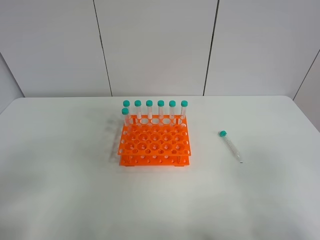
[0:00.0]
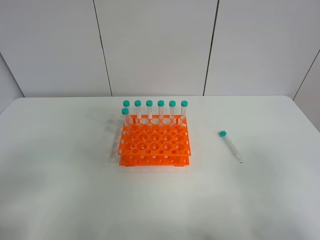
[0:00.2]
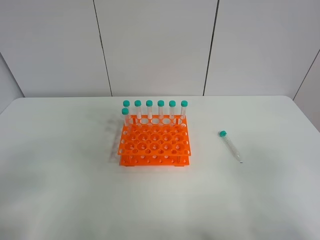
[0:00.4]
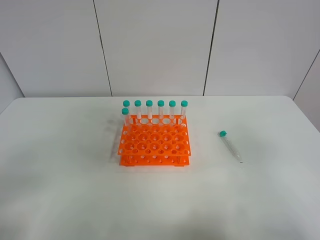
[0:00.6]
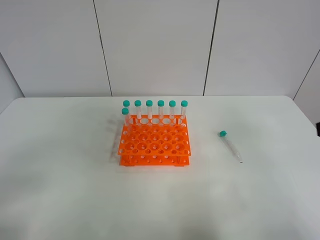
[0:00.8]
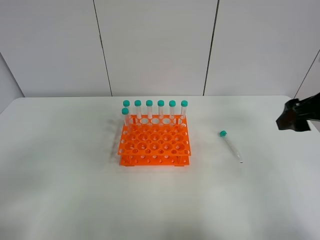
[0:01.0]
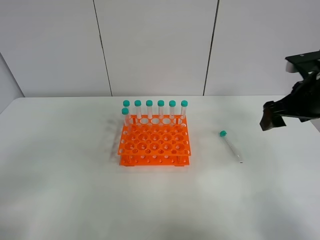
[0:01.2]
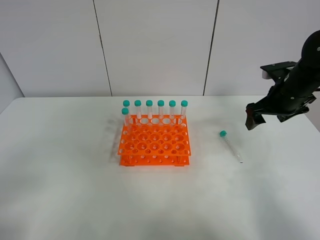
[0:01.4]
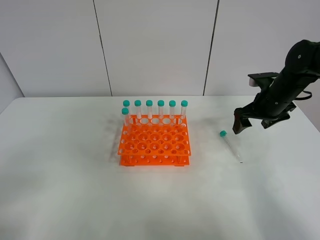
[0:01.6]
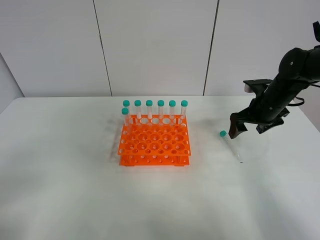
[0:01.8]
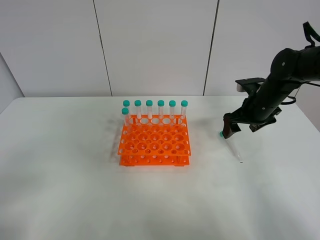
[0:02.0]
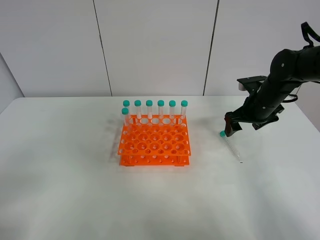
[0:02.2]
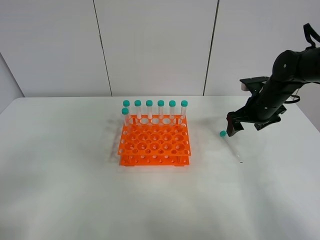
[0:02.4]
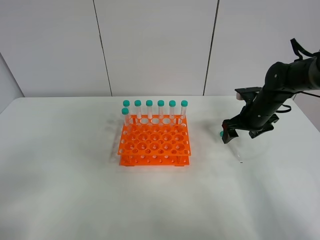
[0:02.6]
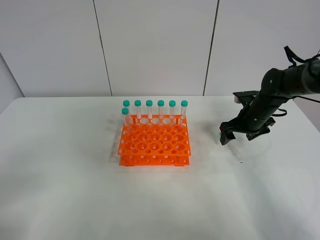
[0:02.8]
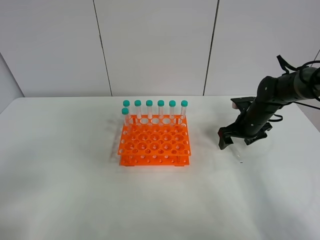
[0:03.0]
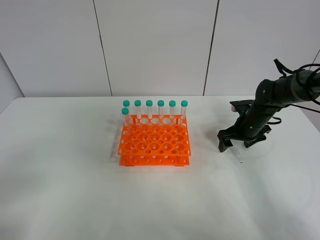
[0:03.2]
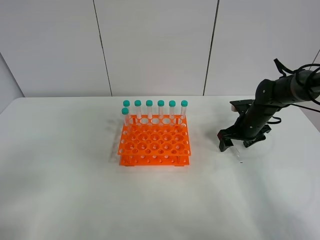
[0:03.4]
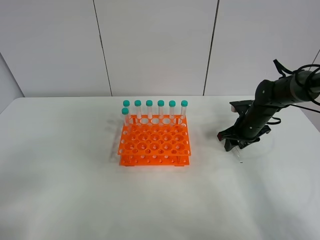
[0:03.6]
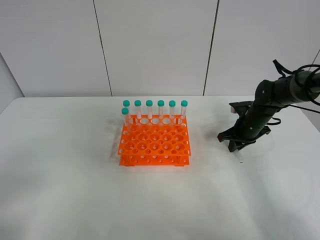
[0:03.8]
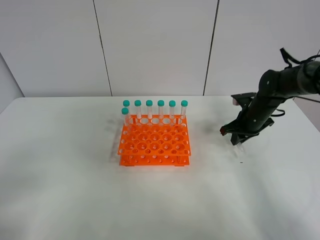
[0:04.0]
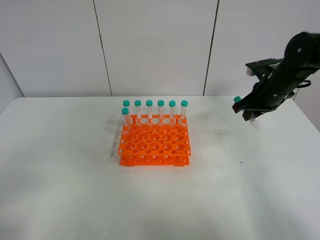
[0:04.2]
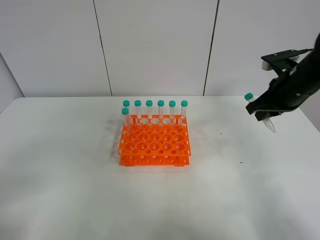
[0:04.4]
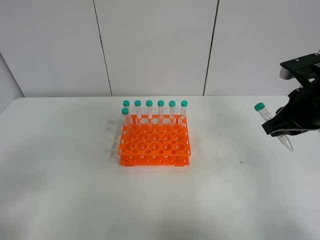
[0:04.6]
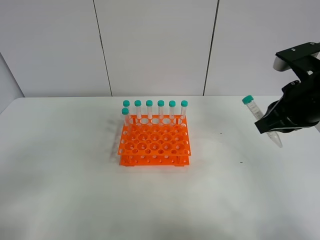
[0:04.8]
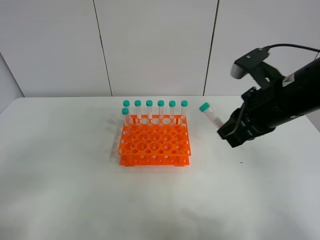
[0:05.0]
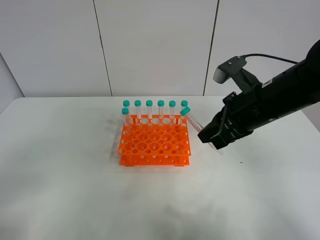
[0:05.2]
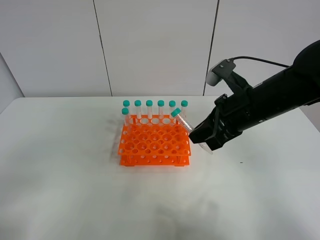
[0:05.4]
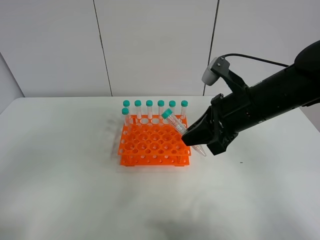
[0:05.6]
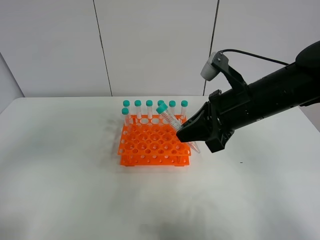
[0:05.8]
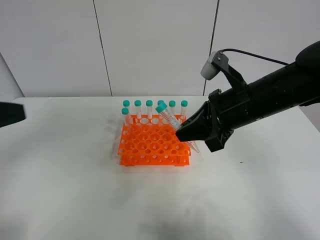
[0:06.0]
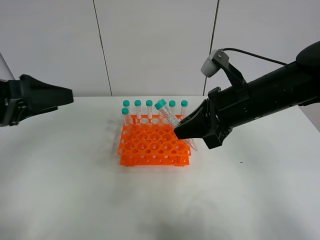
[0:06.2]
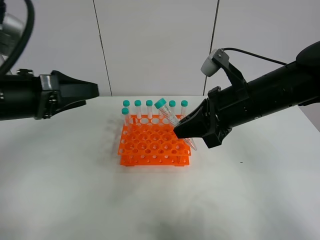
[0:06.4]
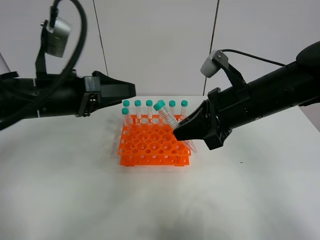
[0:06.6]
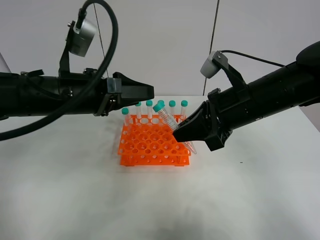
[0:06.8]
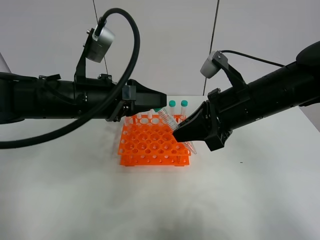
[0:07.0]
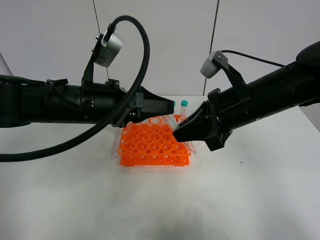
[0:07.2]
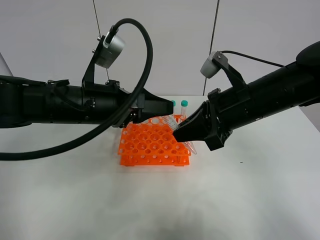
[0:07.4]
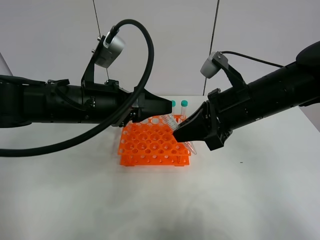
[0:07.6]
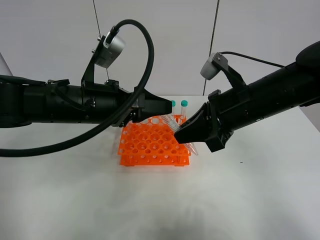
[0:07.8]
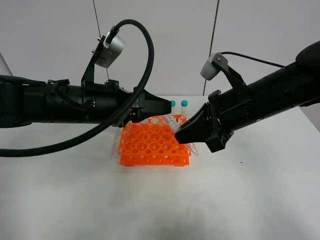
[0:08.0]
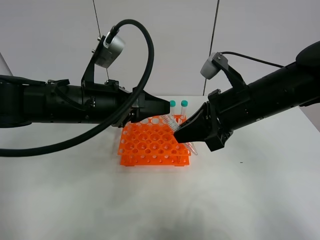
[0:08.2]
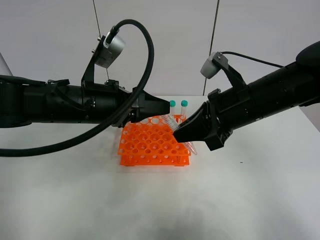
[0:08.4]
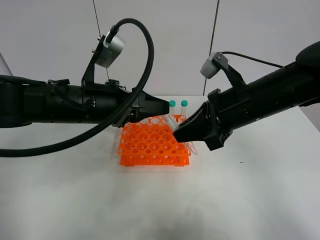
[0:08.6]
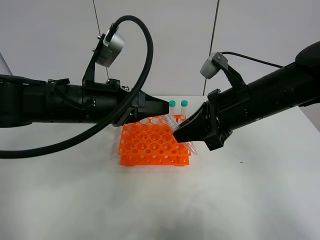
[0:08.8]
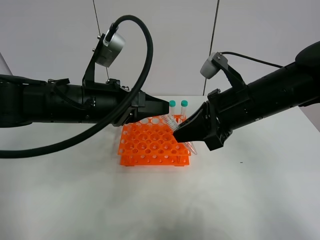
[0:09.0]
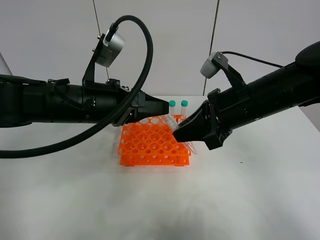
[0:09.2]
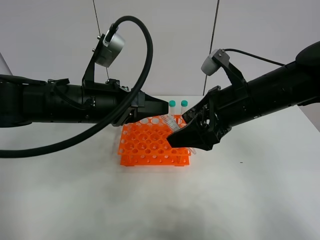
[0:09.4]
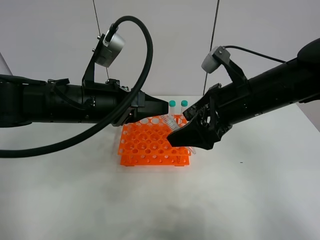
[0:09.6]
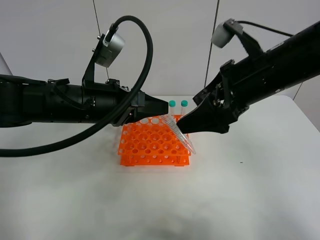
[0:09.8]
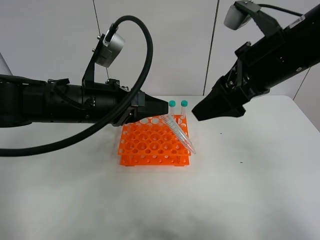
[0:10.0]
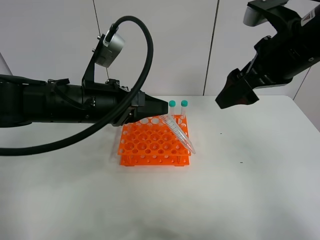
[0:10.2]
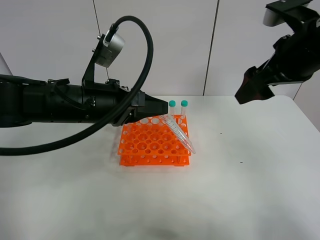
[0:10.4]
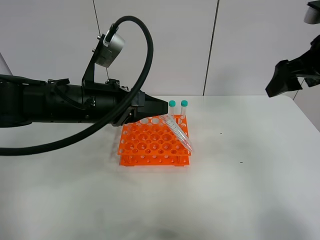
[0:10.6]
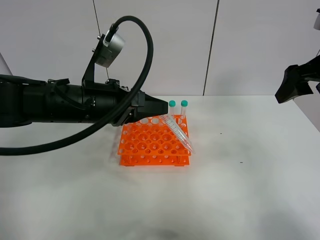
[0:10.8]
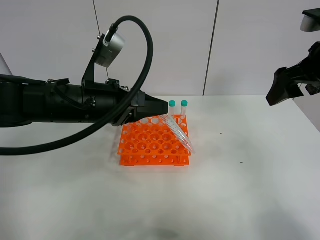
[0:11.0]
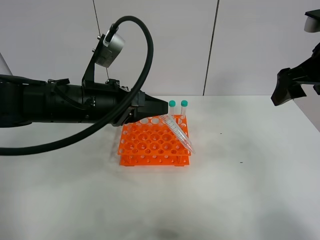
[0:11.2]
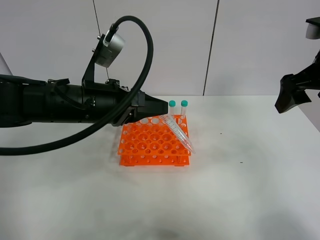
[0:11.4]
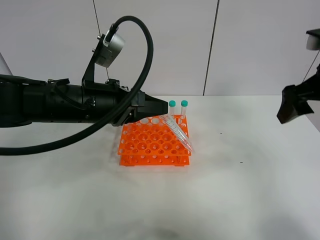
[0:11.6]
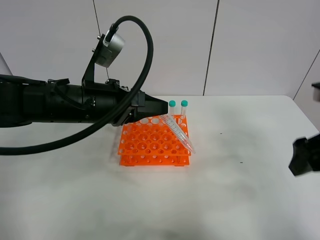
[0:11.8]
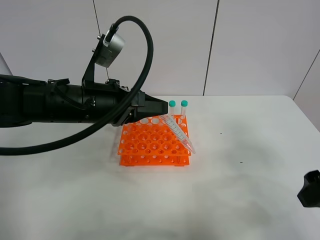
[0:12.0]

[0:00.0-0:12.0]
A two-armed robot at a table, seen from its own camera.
Task of the whole recording: Put the test tube on the table back onto the test tube rack.
Step, 0:00.0 to 0:04.2: Pick up the test tube with the right gripper.
Step, 0:04.4 to 0:10.0: Move the test tube from the right gripper to the left gripper.
0:00.0 to 0:01.6: The right gripper travels forward by approximately 35 cm.
0:01.6 to 0:03.0: The right gripper heads downward, covering roughly 10 cm.
0:03.0 to 0:04.4: The right gripper travels upward and backward by approximately 20 cm, and closes its fingers.
0:04.4 to 0:06.0: The right gripper heads to the left and backward, covering some 15 cm. Meanwhile the left gripper shifts about 15 cm forward.
0:06.0 to 0:07.6: The left gripper shifts about 20 cm to the right, forward and downward.
0:07.6 to 0:09.0: The left gripper closes its fingers.
0:09.0 to 0:10.4: The right gripper moves upward and to the right, approximately 10 cm, and opens up.
0:10.4 to 0:12.0: The right gripper travels backward, downward and to the right by some 20 cm.

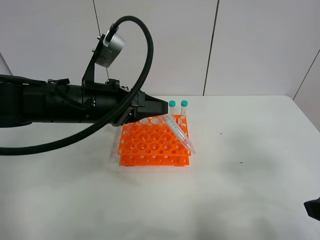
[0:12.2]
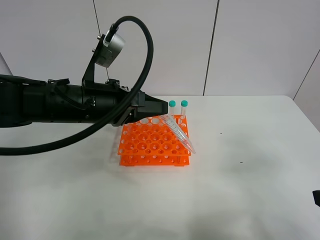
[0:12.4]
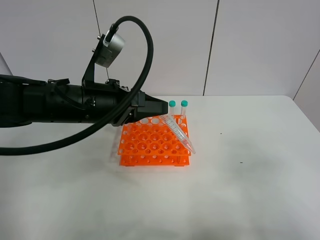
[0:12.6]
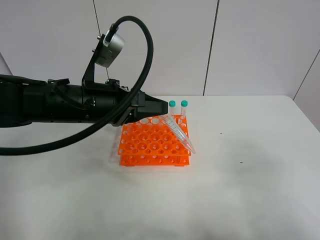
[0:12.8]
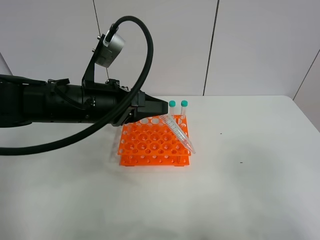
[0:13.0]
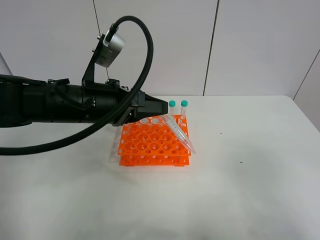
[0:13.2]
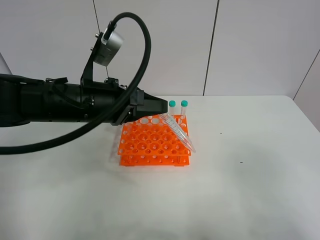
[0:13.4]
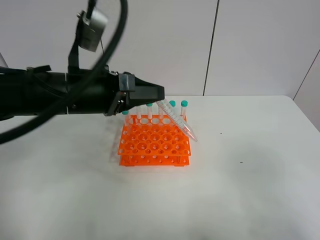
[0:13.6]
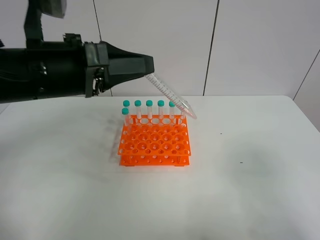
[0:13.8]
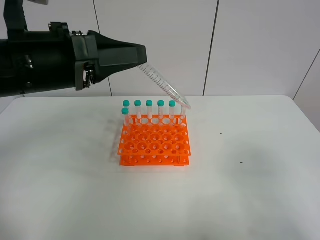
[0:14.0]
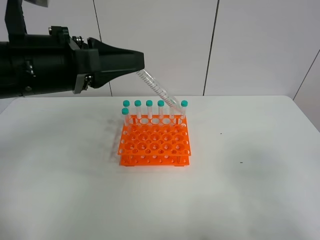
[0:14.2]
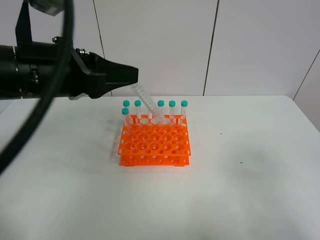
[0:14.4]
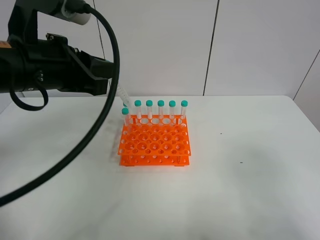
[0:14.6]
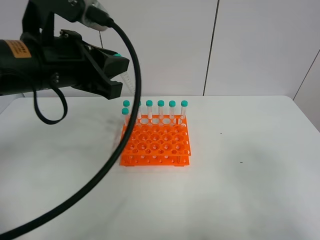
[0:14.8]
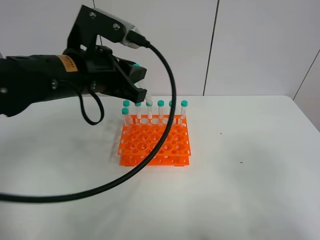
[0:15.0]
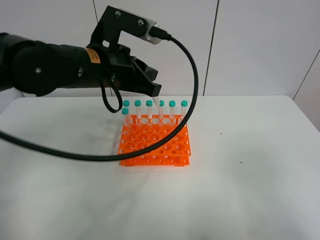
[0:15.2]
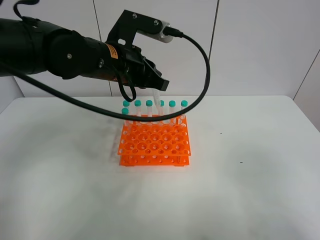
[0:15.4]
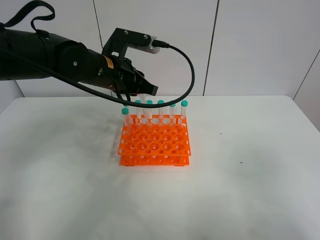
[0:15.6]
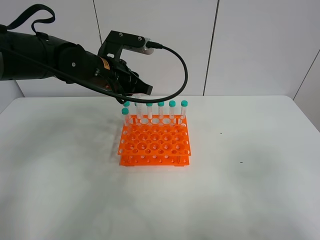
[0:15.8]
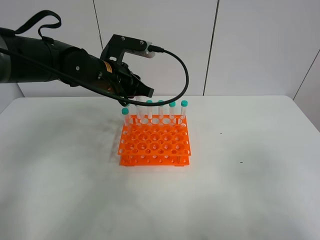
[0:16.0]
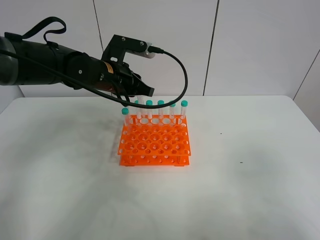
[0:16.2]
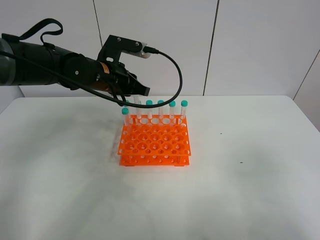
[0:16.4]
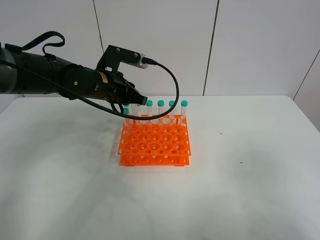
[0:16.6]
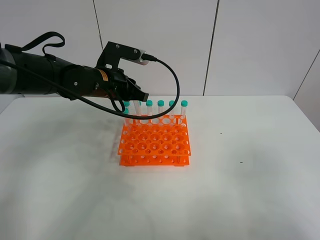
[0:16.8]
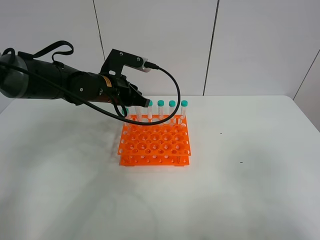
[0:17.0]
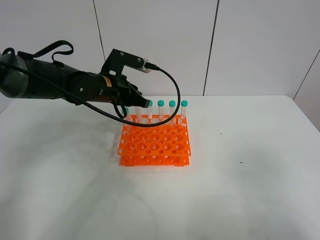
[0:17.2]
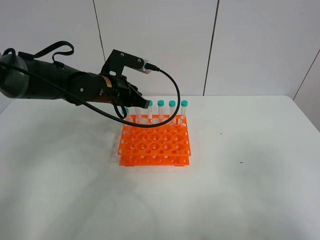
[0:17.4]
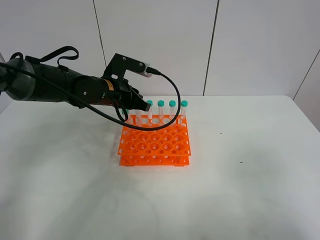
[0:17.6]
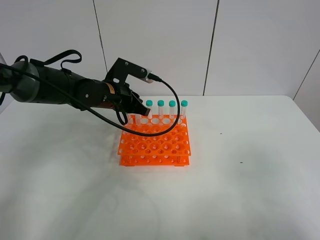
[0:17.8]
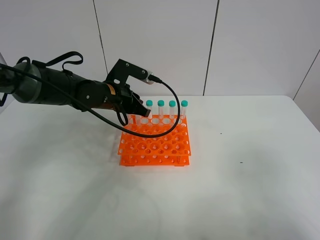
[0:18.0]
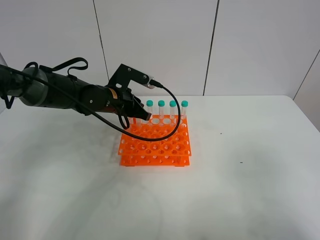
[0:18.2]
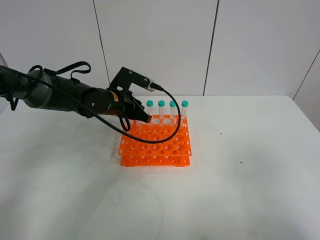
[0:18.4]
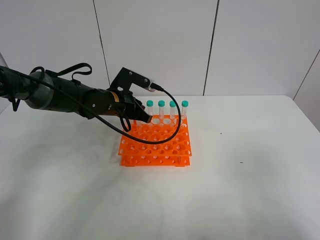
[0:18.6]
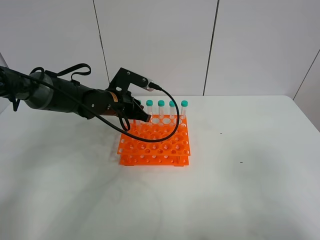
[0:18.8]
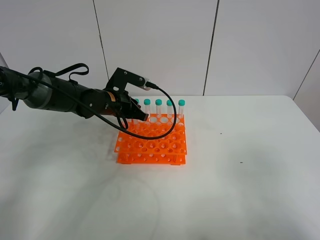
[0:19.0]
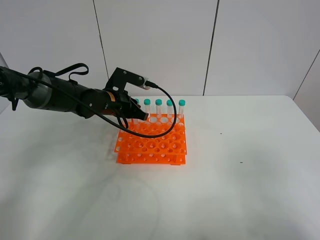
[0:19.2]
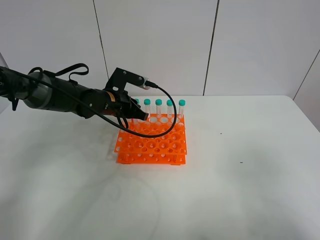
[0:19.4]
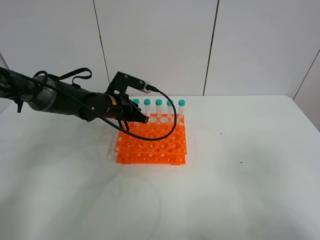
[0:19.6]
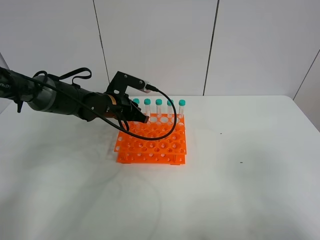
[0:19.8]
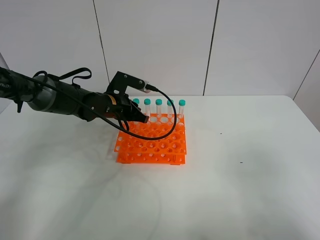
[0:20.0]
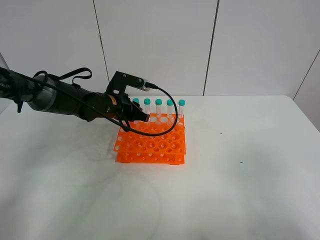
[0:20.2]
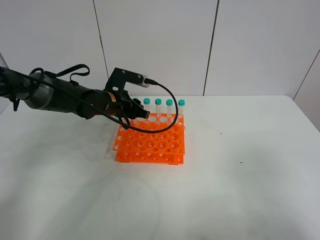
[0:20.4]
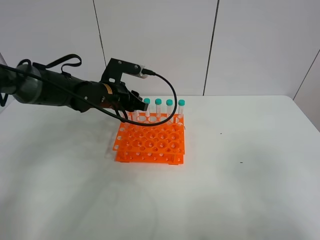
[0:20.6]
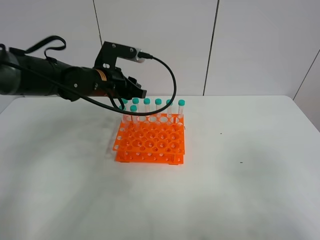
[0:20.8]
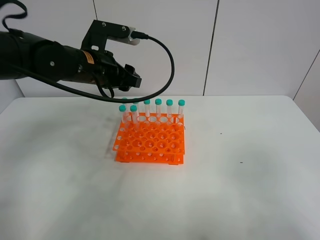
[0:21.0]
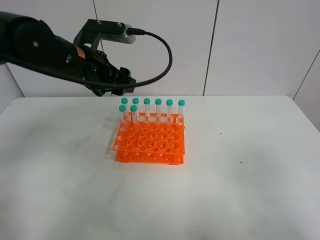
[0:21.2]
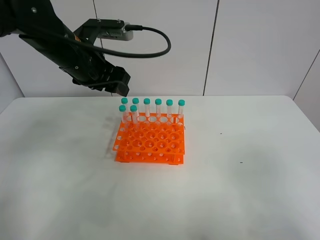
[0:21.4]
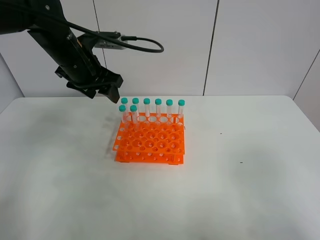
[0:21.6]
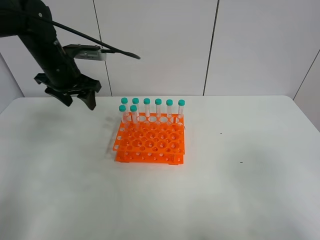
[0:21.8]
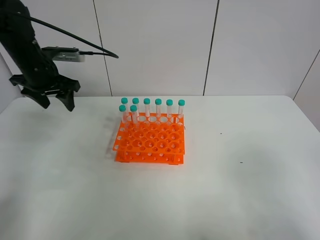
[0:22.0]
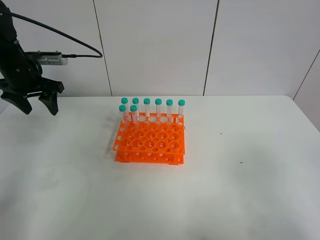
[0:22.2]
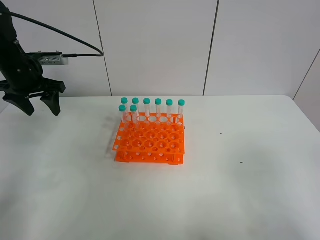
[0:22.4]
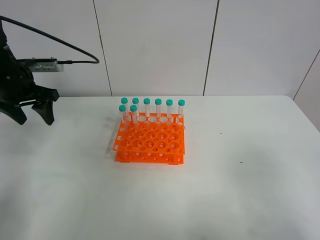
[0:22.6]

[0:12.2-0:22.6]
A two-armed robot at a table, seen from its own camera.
Task of the whole recording: Put the test tube on the table back onto the test tube rack.
Step, 0:12.2 to 0:21.2: Place the test tube on the test tube rack with the left gripper.
0:12.2 to 0:13.6: The right gripper shifts roughly 10 cm backward.
0:13.6 to 0:15.2: The left gripper is displaced forward by approximately 5 cm.
0:15.2 to 0:16.6: The left gripper goes approximately 10 cm downward and forward.
0:16.6 to 0:18.2: The left gripper is displaced downward by some 5 cm.
0:18.2 to 0:19.6: The grippers stay close to where they were, moving slightly.
0:19.6 to 0:21.2: The left gripper heads upward and backward, covering some 15 cm, and opens up.
0:21.2 to 0:22.6: The left gripper heads to the left, covering approximately 15 cm.
